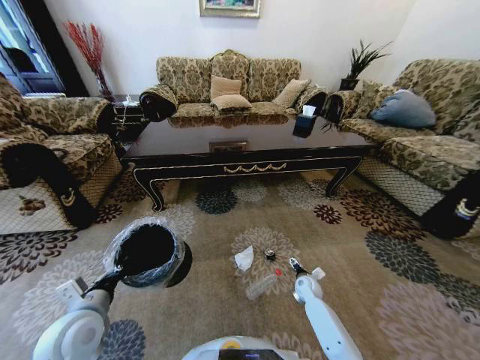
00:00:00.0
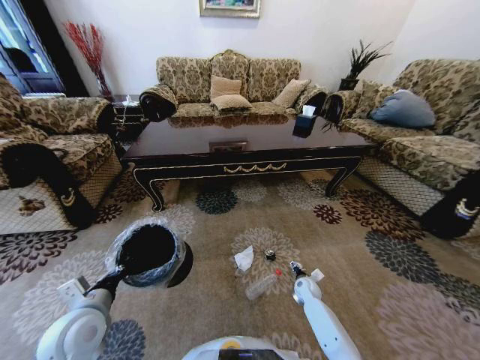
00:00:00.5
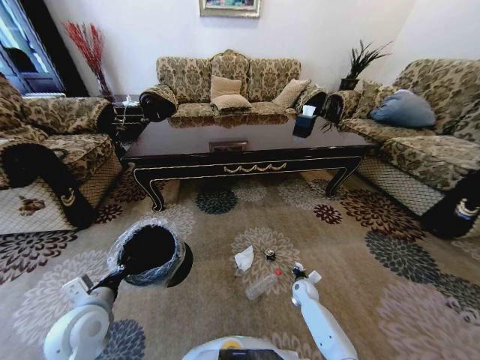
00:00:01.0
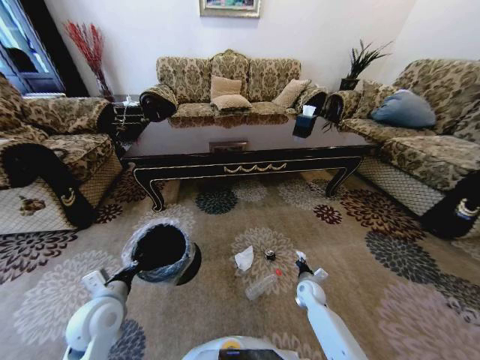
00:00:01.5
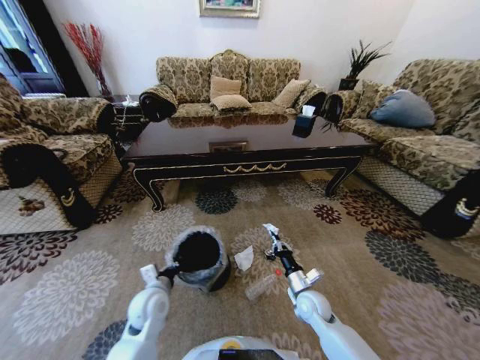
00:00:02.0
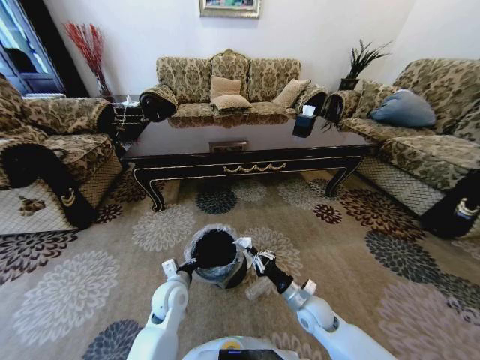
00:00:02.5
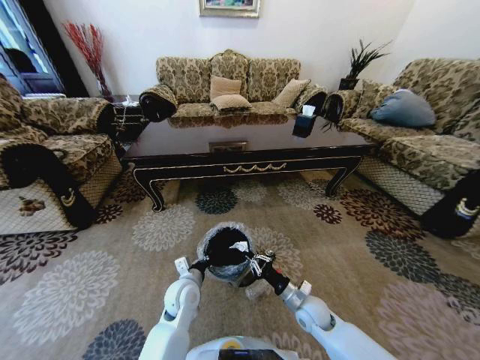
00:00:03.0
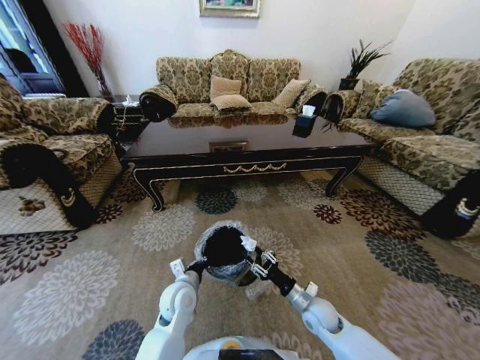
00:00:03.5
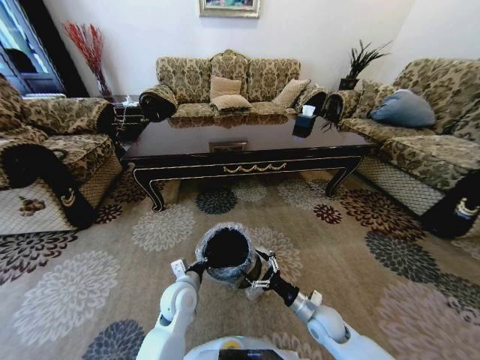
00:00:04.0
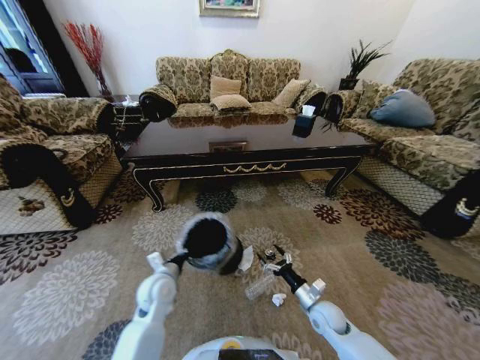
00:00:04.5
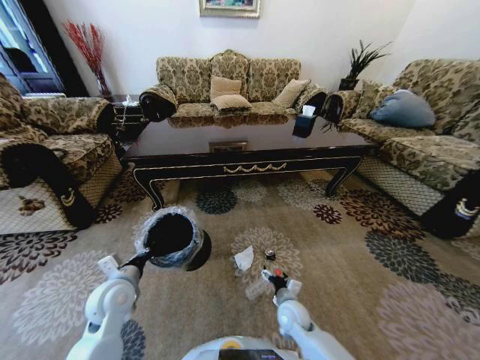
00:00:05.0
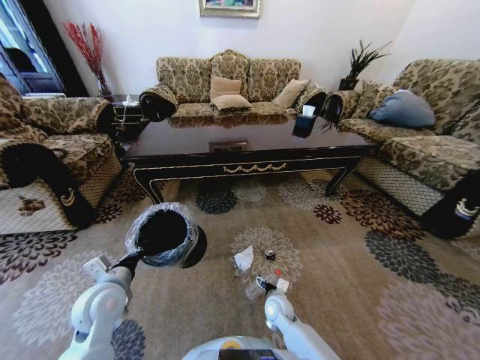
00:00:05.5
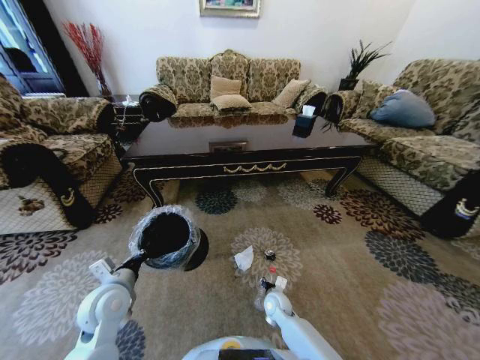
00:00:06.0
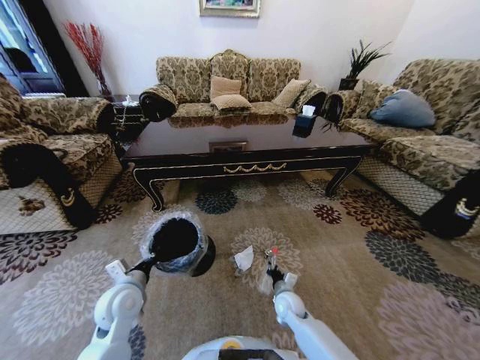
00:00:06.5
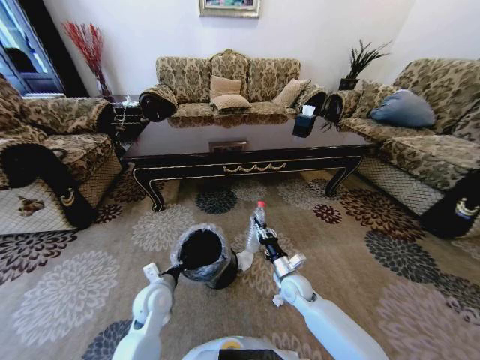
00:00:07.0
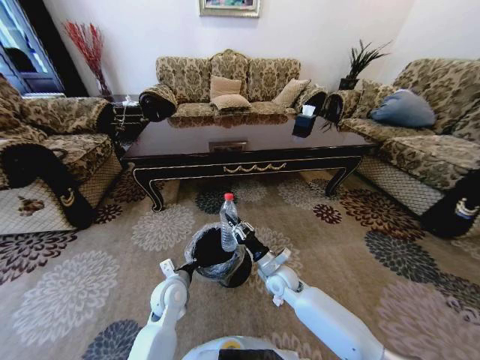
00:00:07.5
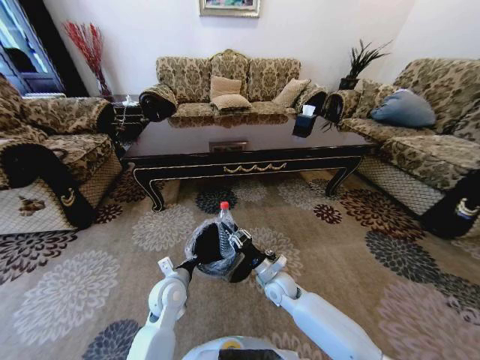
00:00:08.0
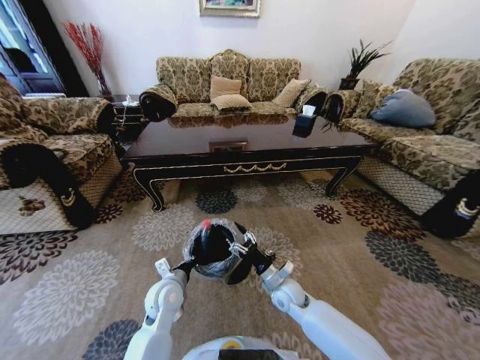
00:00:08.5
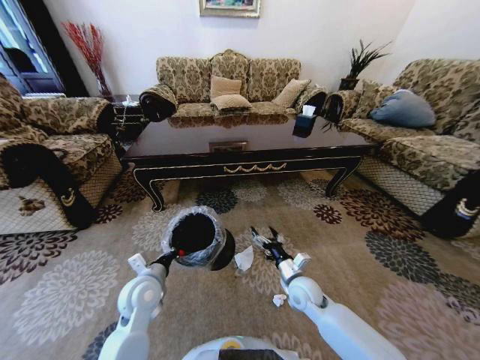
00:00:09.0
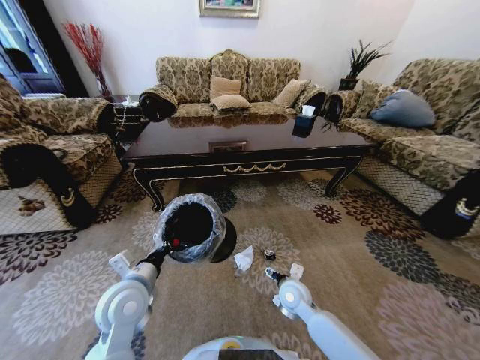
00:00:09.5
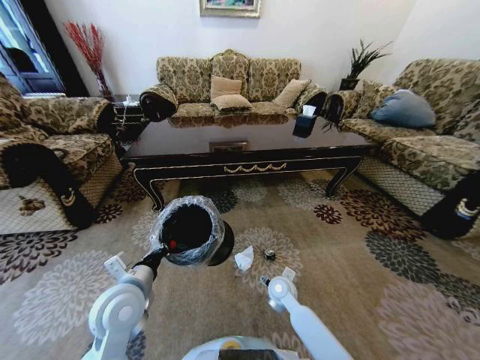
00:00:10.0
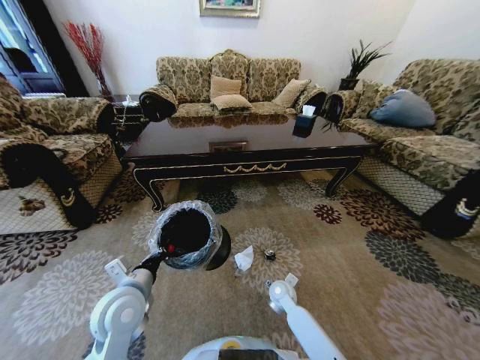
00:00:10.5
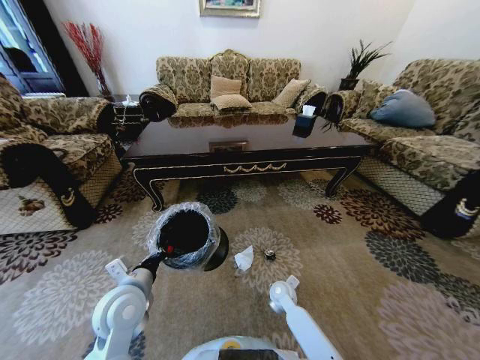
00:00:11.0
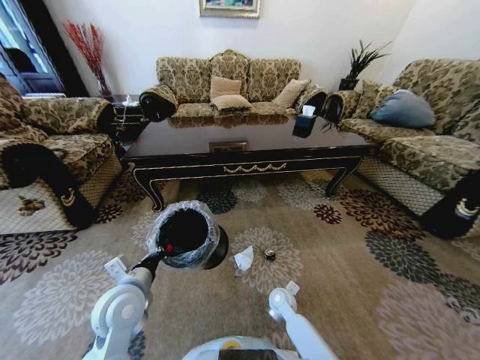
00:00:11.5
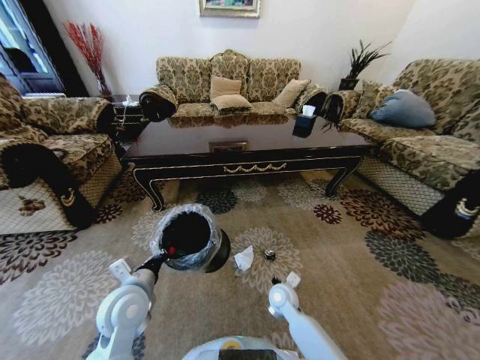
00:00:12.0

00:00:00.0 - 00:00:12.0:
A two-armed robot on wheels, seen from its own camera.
Task of the whole recording: Move to the front of the table and pick up the trash from the floor, then place it into the trash bin.
00:00:00.0 - 00:00:02.0: The left gripper is displaced to the right, downward and forward by about 15 cm, while the right gripper shifts approximately 15 cm upward, backward and to the left, and closes.
00:00:02.0 - 00:00:04.0: The left gripper moves to the right, about 10 cm. Meanwhile the right gripper opens.
00:00:04.0 - 00:00:06.0: The left gripper heads to the left and upward, covering approximately 15 cm. The right gripper travels to the left, downward and forward by approximately 15 cm, and closes.
00:00:06.0 - 00:00:08.0: The right gripper heads upward, covering some 10 cm, and closes. Meanwhile the left gripper is displaced to the right and downward by approximately 15 cm.
00:00:08.0 - 00:00:10.0: The left gripper heads upward, to the left and backward, covering some 15 cm, while the right gripper opens up.
00:00:10.0 - 00:00:12.0: The right gripper closes up.

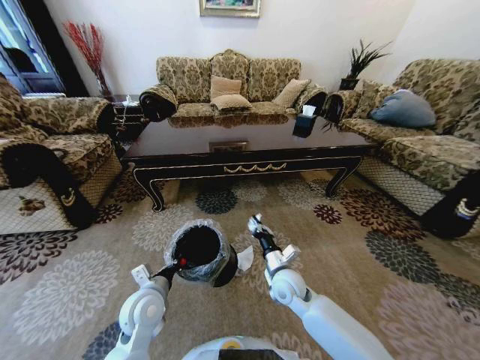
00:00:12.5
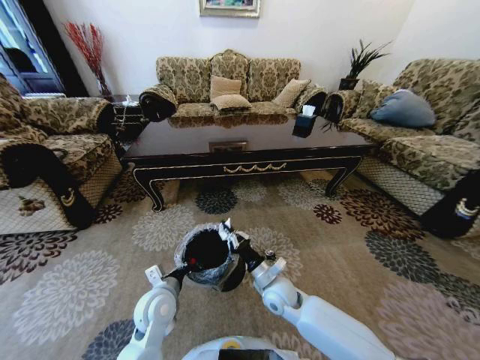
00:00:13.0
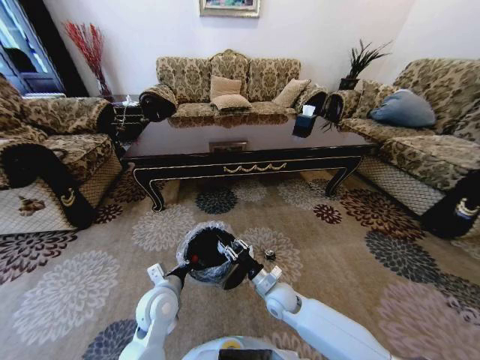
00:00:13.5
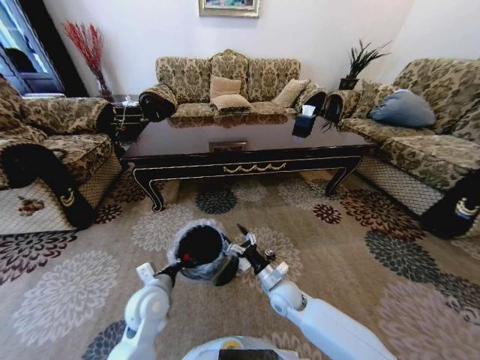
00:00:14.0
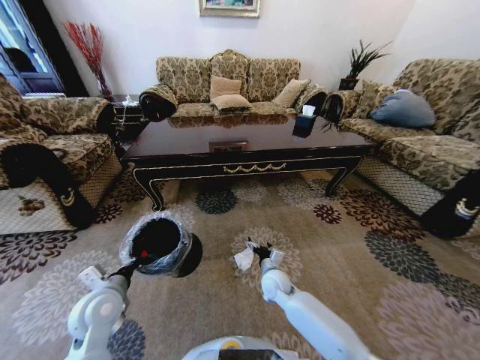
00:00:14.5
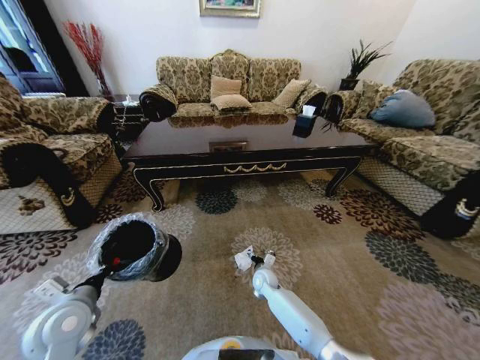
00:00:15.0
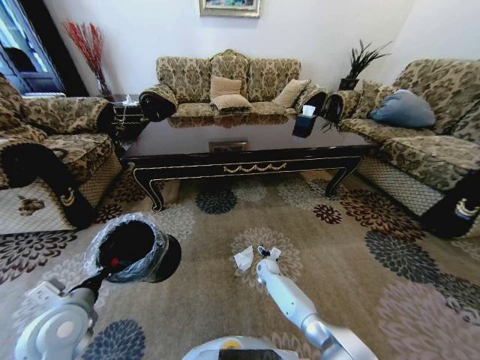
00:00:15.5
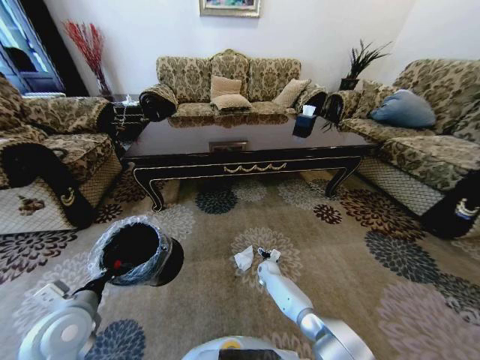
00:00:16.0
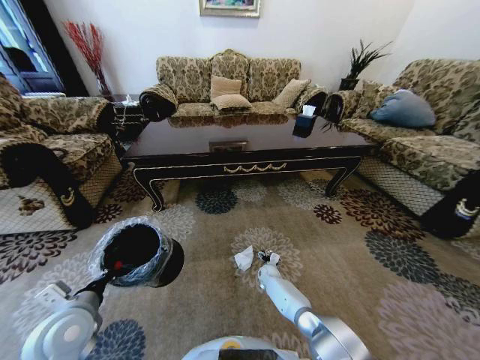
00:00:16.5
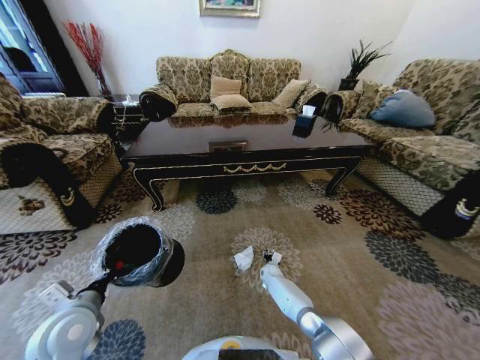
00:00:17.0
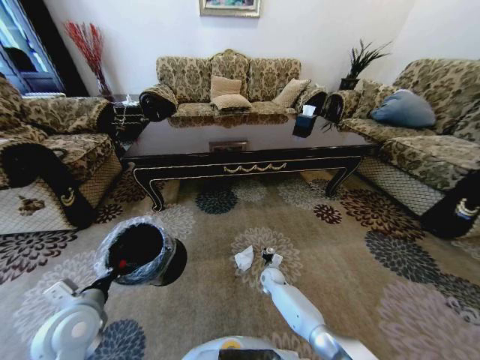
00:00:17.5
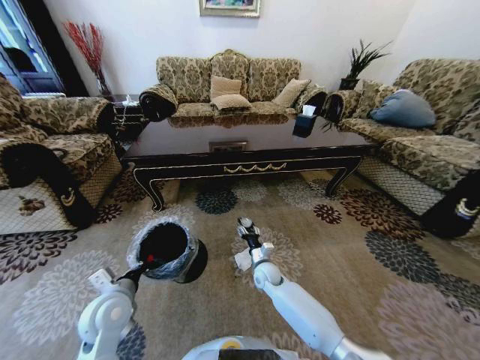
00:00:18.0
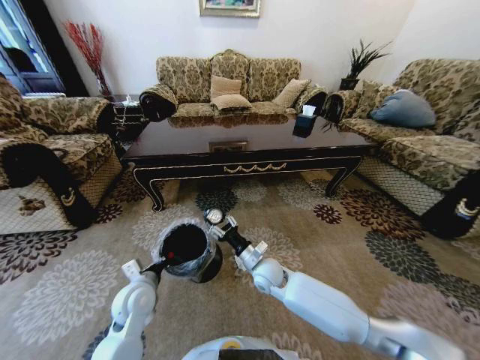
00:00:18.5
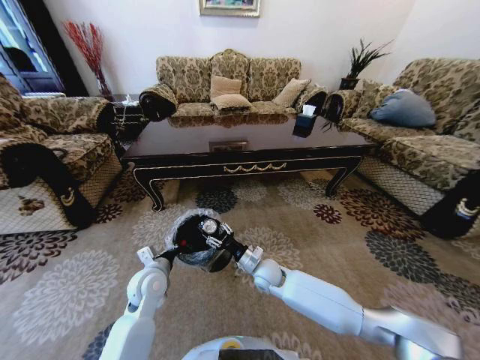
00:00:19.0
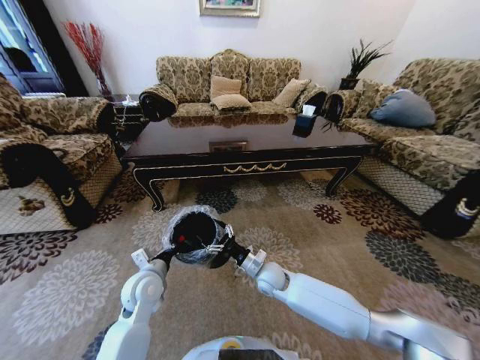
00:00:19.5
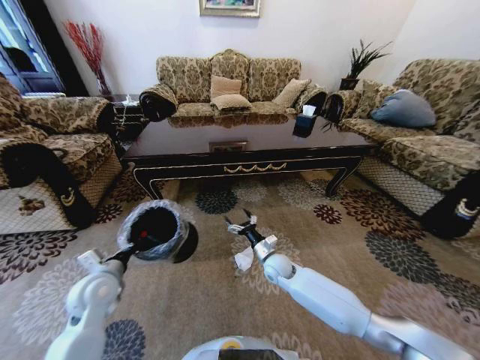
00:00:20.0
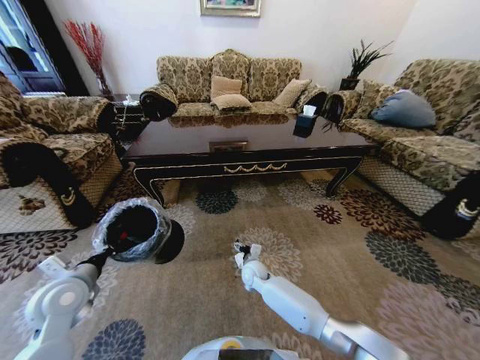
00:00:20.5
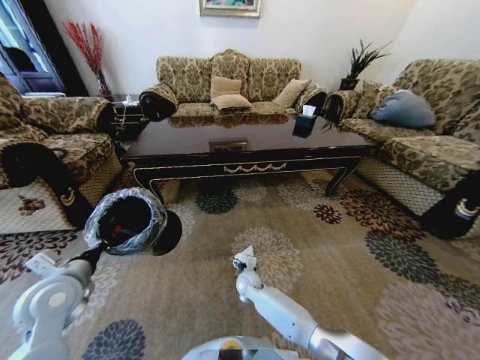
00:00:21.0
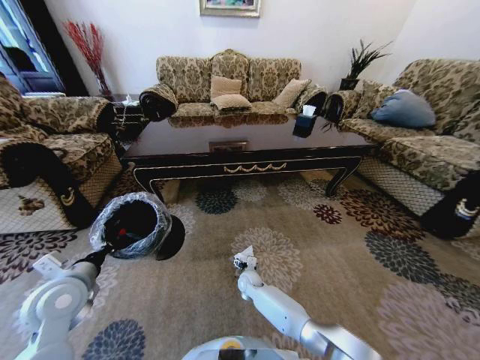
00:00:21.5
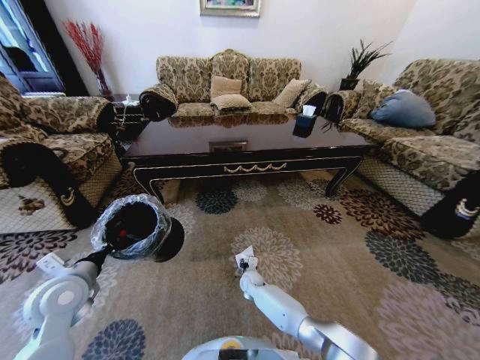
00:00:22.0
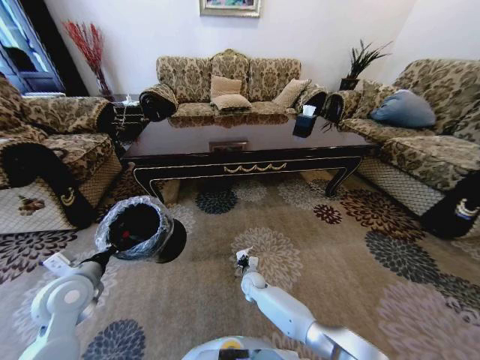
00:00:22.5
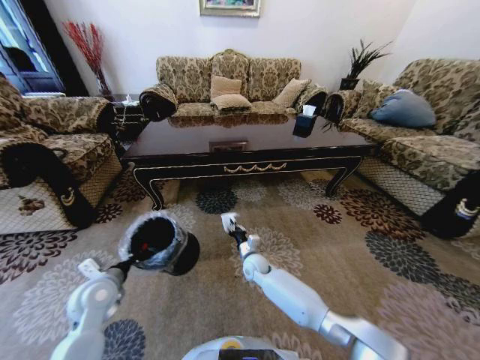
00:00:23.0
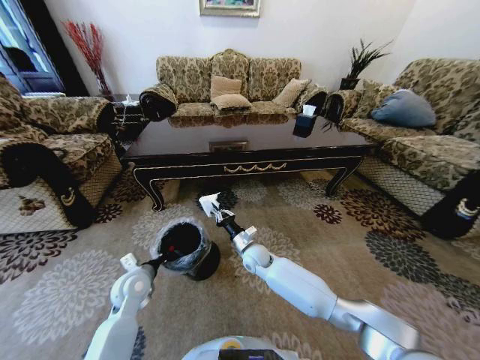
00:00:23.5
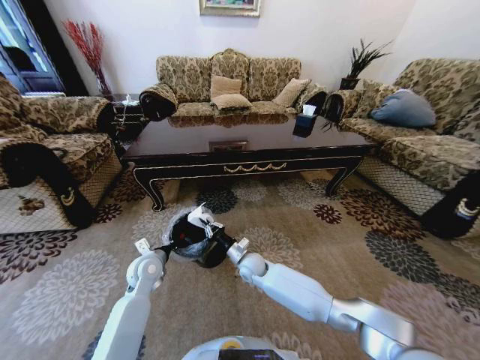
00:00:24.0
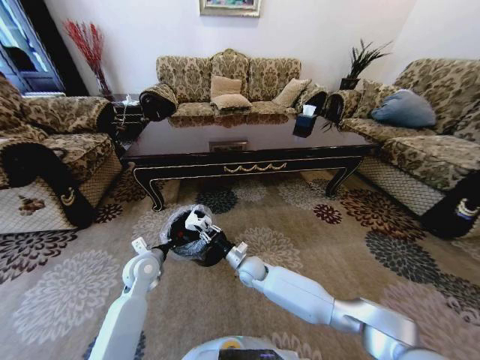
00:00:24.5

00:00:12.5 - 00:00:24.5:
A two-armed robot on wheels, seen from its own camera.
Task of the whole recording: Move to the front of the table and pick up the trash from the floor, then place it into the trash bin.
00:00:12.5 - 00:00:14.5: The left gripper is displaced to the left by about 10 cm, while the right gripper travels downward by approximately 5 cm, and opens.
00:00:14.5 - 00:00:16.5: The right gripper heads downward and forward, covering about 20 cm. Meanwhile the left gripper ends up approximately 5 cm from where it was.
00:00:16.5 - 00:00:18.5: The left gripper goes approximately 15 cm to the right, forward and downward; the right gripper heads upward, covering some 25 cm, and closes its fingers.
00:00:18.5 - 00:00:20.5: The left gripper travels to the left and upward by about 15 cm, while the right gripper heads downward, covering approximately 10 cm, and opens up.
00:00:20.5 - 00:00:22.5: The right gripper travels downward by approximately 10 cm, and closes.
00:00:22.5 - 00:00:24.5: The left gripper goes roughly 15 cm to the right, forward and downward, while the right gripper shifts about 10 cm upward.

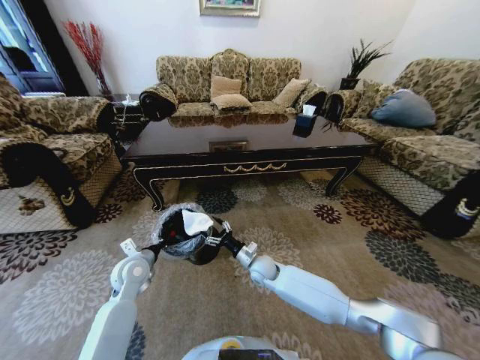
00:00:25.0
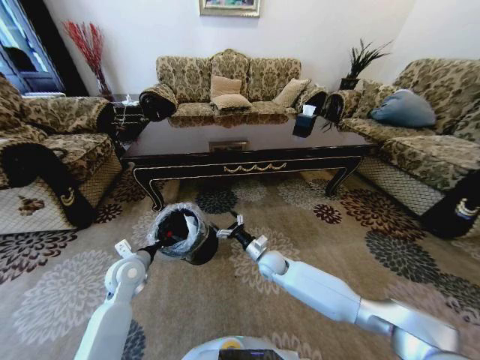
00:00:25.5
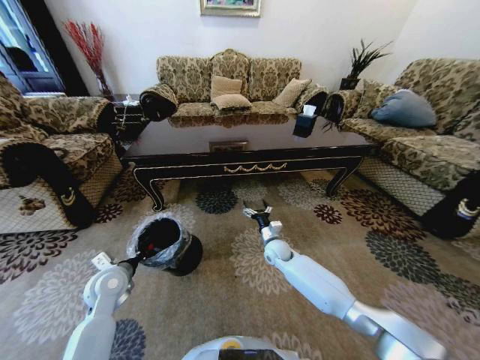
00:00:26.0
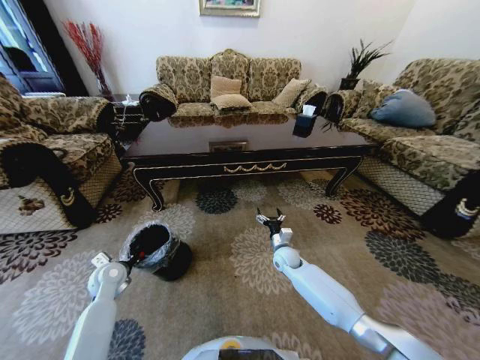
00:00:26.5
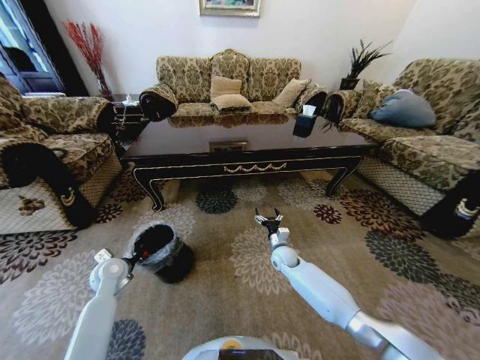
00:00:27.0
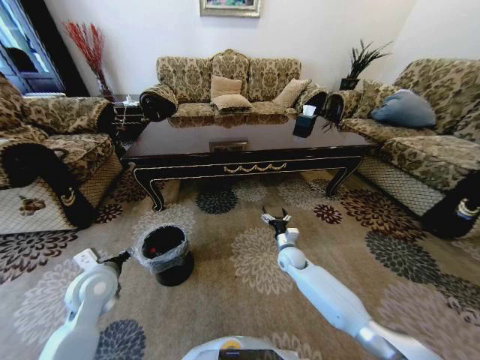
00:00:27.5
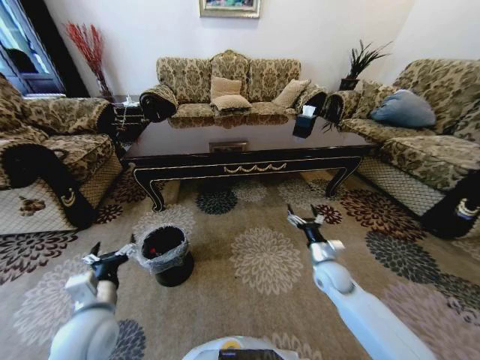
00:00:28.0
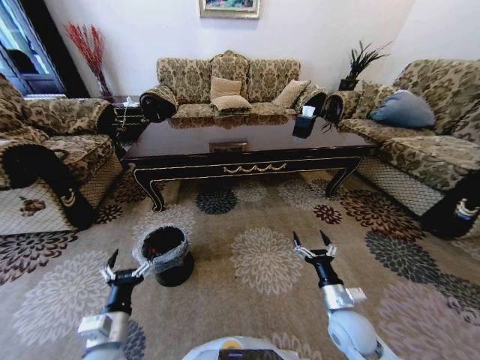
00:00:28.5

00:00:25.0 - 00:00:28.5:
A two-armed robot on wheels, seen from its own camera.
Task of the whole recording: Move to the front of the table and pick up the trash from the floor, then place it into the trash bin.
00:00:25.0 - 00:00:27.0: The right gripper travels to the right and forward by approximately 10 cm; the left gripper moves to the left, roughly 10 cm.
00:00:27.0 - 00:00:28.5: The right gripper travels backward by roughly 25 cm; the left gripper travels backward and to the right by some 25 cm, and opens.
